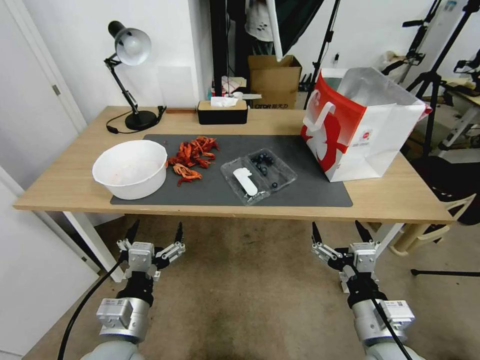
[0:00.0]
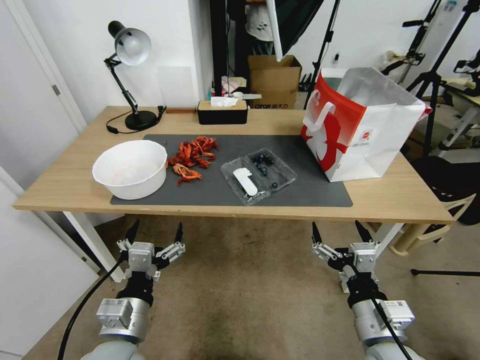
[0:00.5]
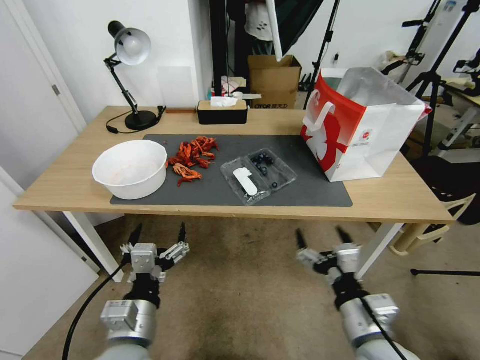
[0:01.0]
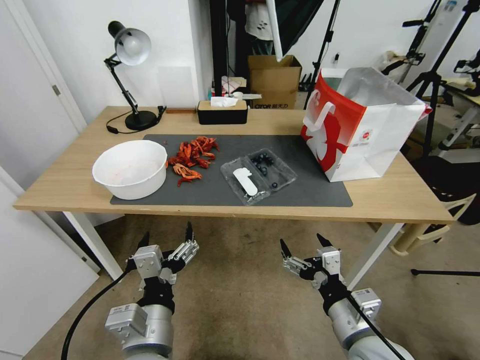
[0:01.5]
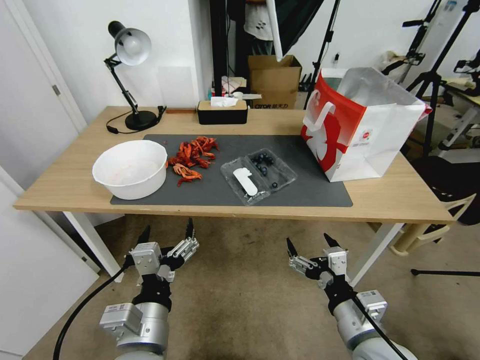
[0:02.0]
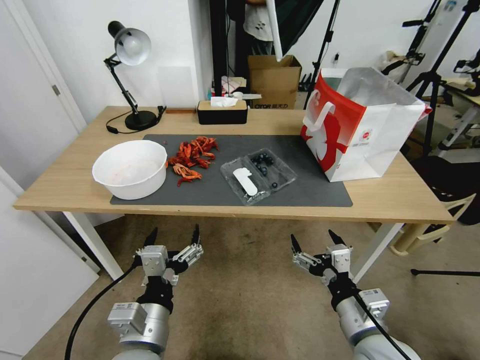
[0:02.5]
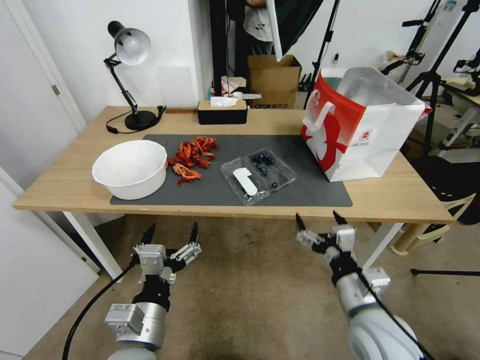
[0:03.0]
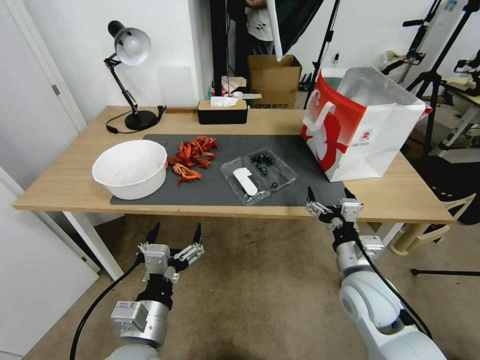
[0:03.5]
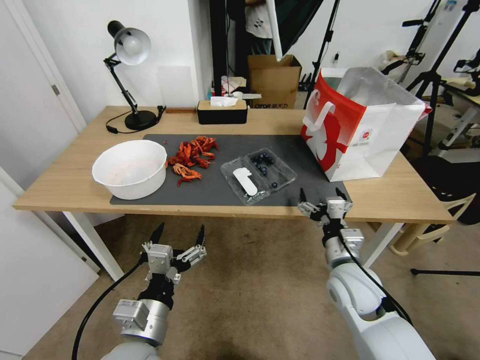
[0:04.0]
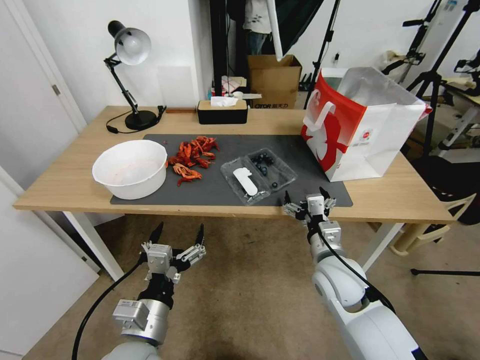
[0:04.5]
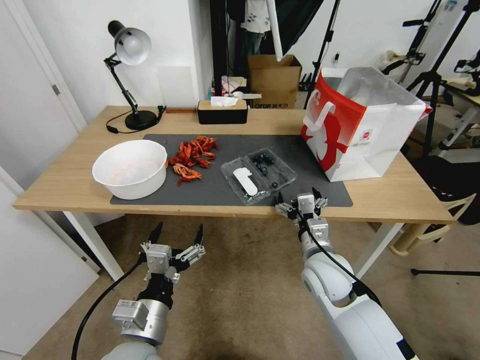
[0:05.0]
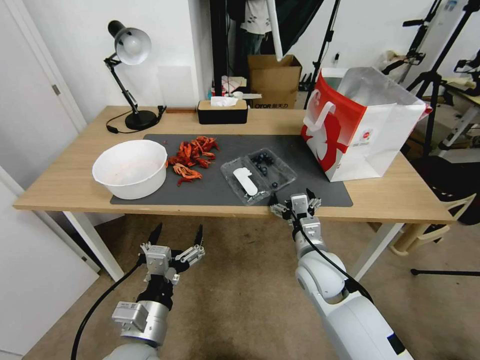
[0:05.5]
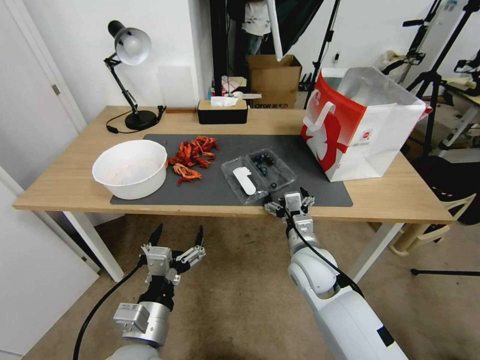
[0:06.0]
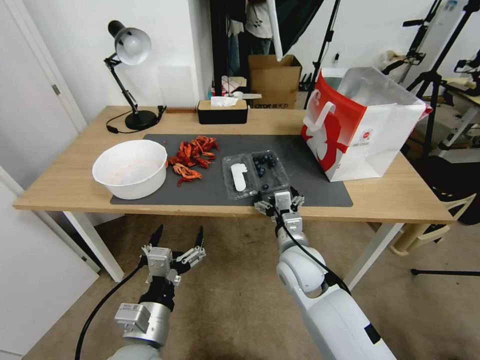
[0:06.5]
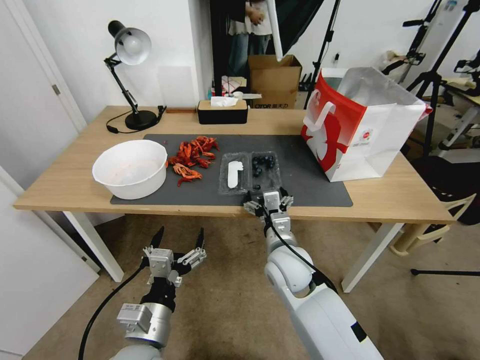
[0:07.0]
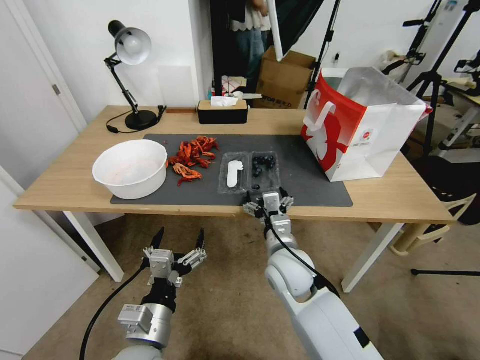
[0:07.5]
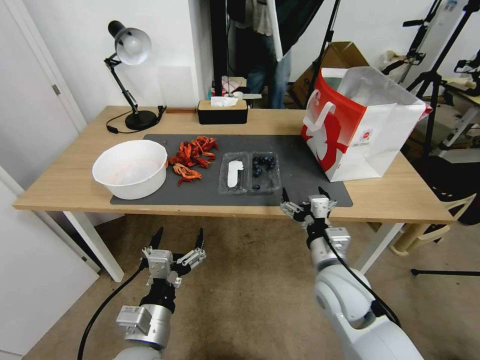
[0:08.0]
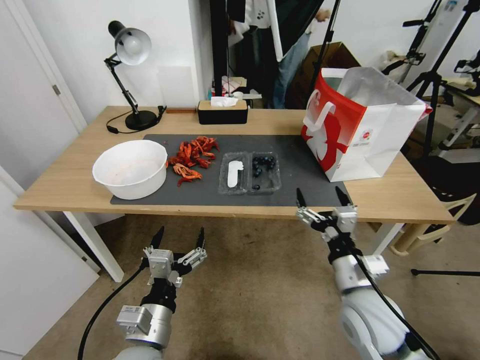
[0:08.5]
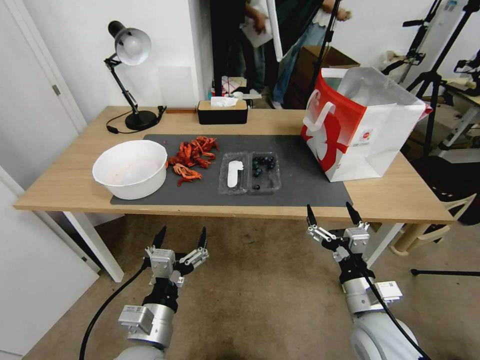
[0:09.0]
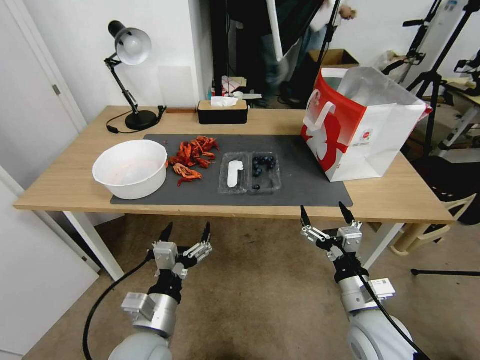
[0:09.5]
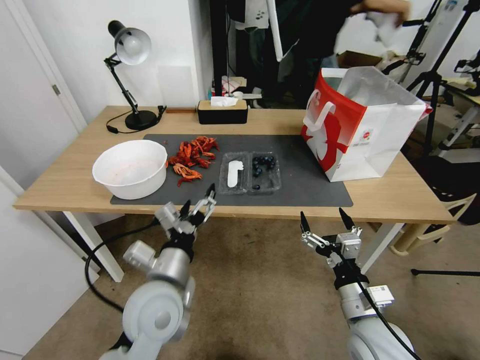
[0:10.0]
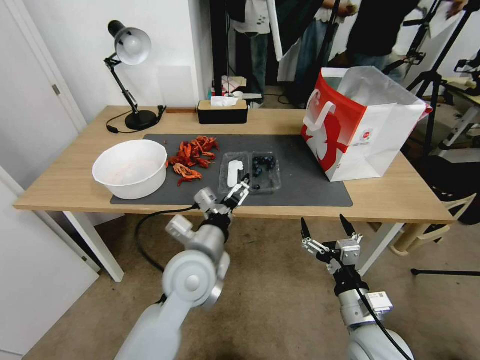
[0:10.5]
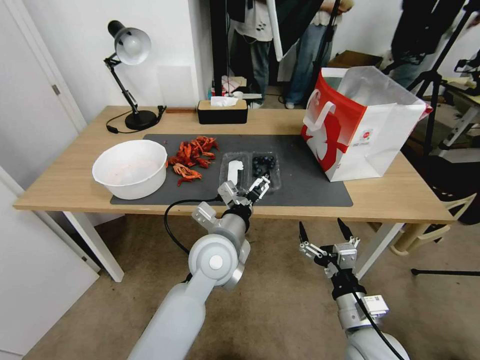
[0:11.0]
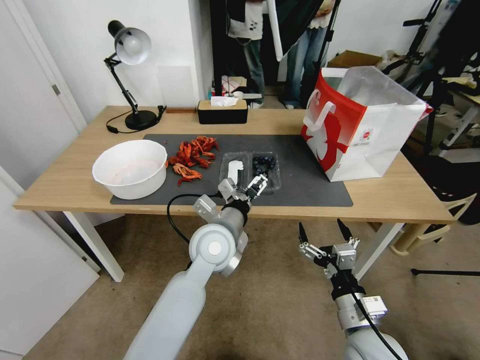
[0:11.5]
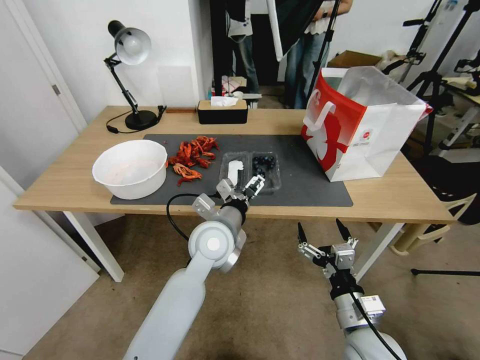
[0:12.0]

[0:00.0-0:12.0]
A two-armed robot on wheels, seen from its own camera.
Task of the whole recording: Close the takeout container lid, then place the container into the takeout bag.
0:02.0 to 0:04.0: The right gripper shifts some 15 cm forward, while the left gripper changes place by approximately 5 cm.
0:04.0 to 0:06.0: The right gripper heads to the left, covering about 5 cm.
0:06.0 to 0:08.0: The right gripper moves about 5 cm to the left and comes back.
0:08.0 to 0:10.0: The left gripper goes approximately 10 cm forward and upward. The right gripper moves backward and to the right, some 10 cm.
0:10.0 to 0:12.0: The left gripper shifts some 15 cm forward and to the right.

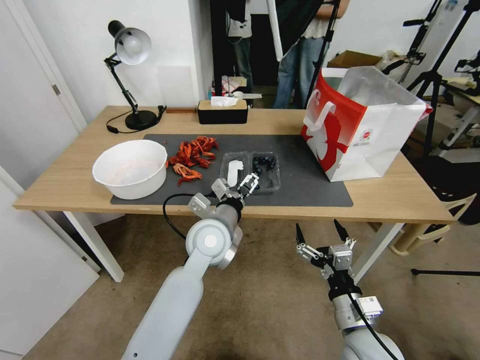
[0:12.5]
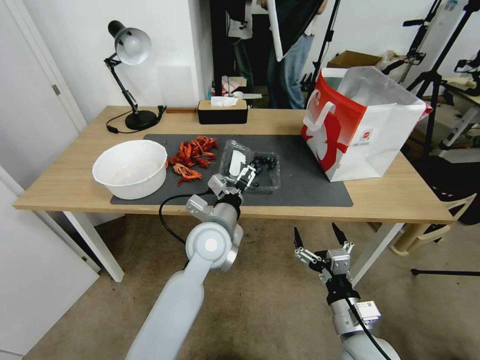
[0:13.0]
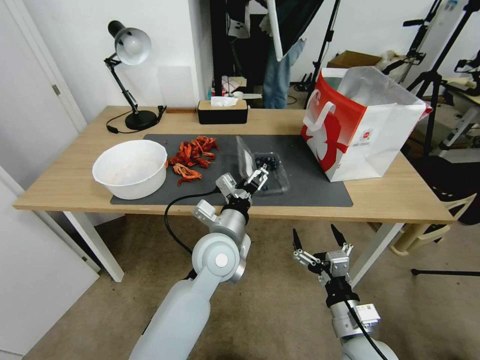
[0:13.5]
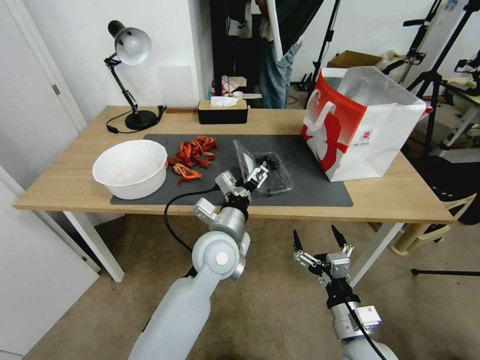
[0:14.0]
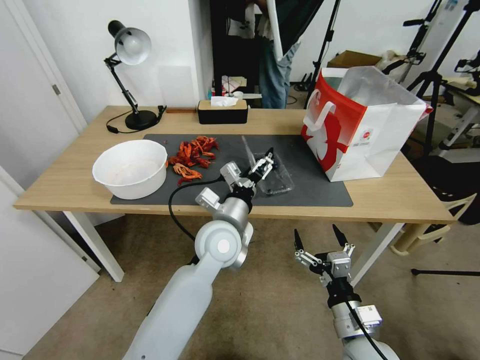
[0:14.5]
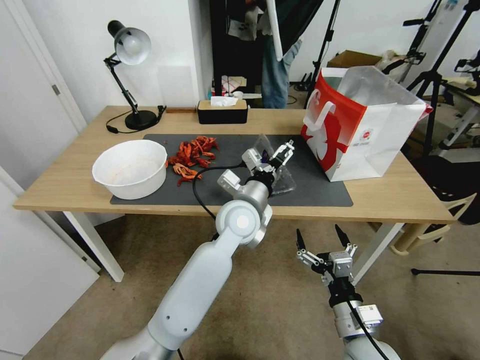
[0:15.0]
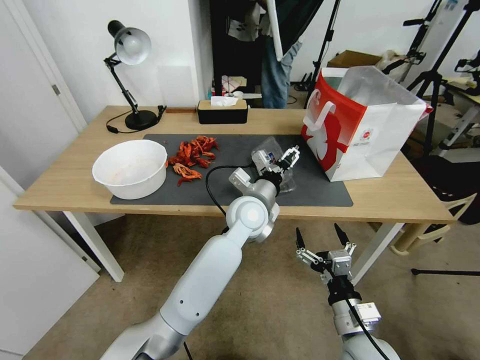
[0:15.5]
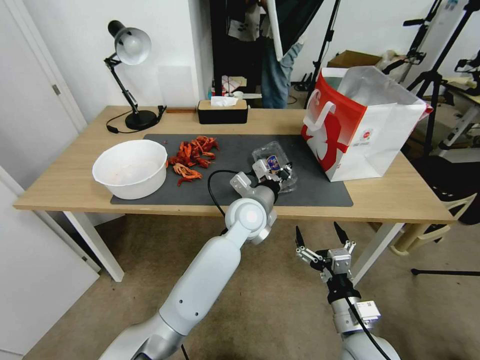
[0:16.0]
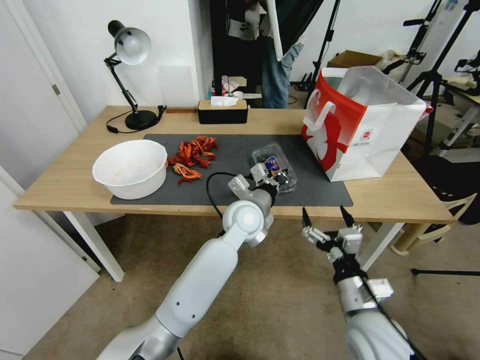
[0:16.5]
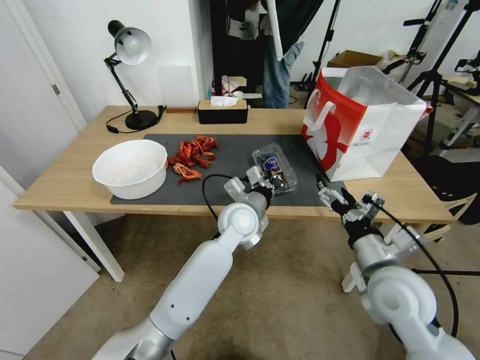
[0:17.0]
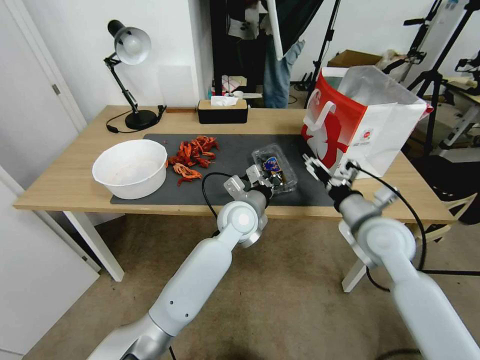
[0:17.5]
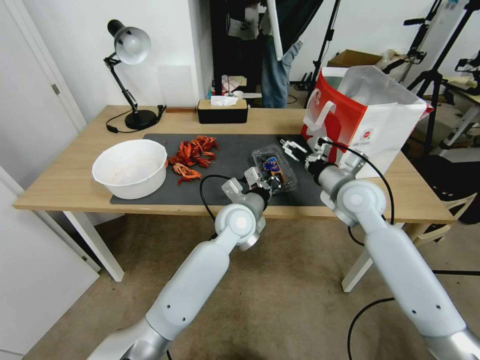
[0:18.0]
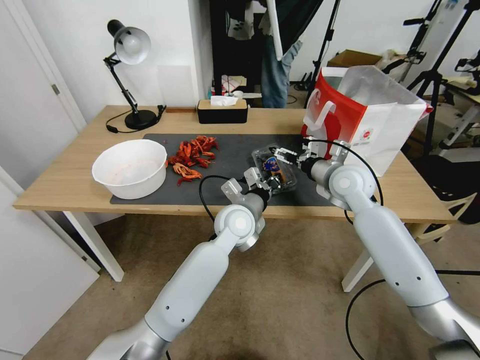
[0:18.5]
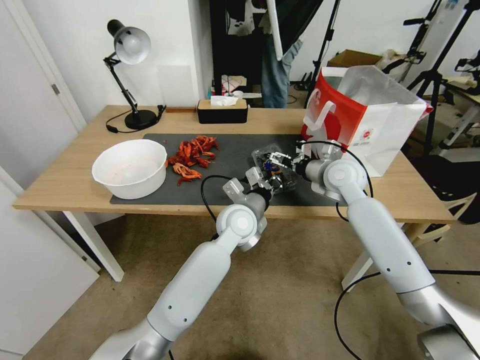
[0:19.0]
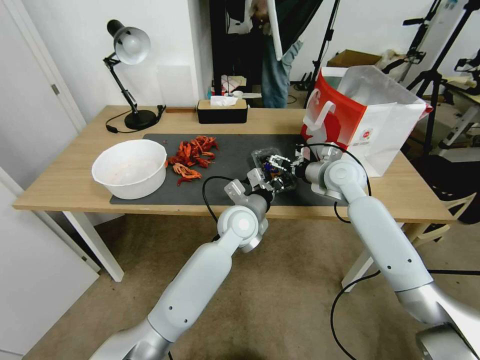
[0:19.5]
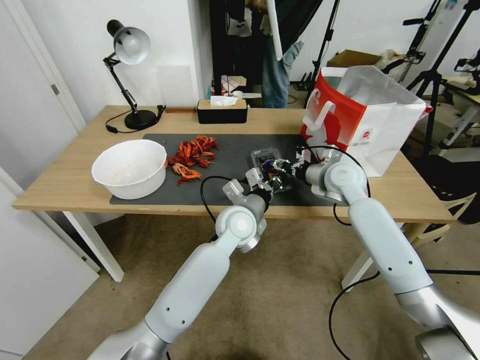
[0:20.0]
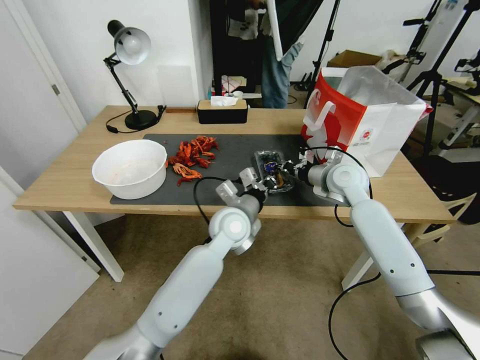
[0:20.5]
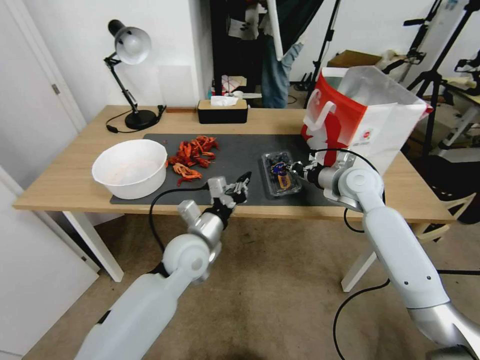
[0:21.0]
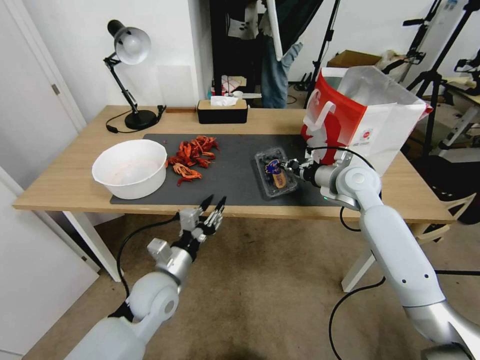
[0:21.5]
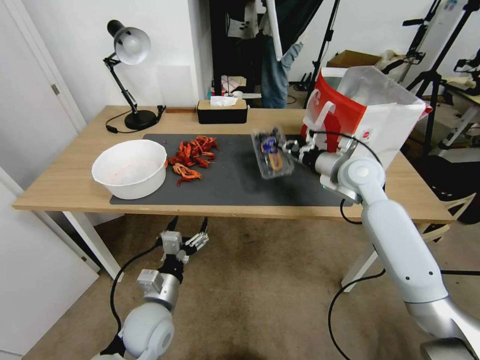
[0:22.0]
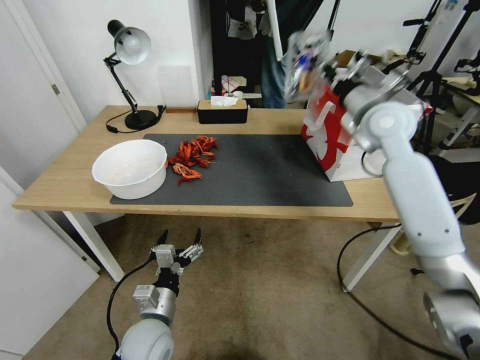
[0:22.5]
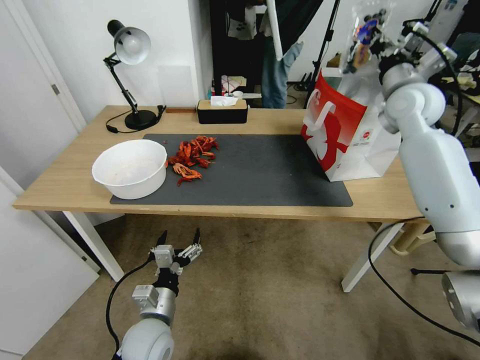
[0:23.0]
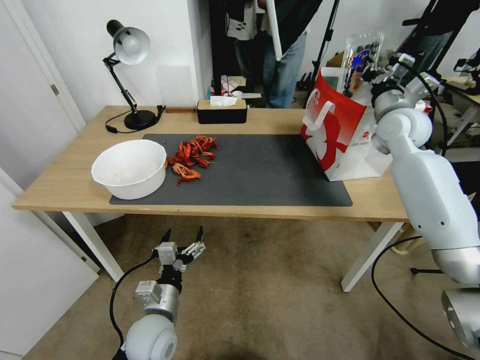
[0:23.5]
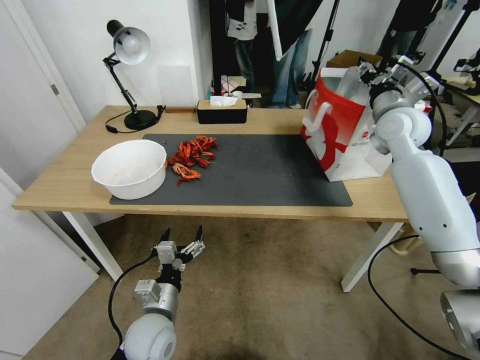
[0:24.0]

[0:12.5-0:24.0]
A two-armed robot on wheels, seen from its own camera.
Task of the whole recording: Close the takeout container lid, then place the container into the takeout bag.
0:14.5 to 0:16.5: The left gripper travels forward and to the right by some 10 cm, and closes.
0:16.5 to 0:18.5: The right gripper shifts about 30 cm forward and upward.
0:18.5 to 0:20.0: The right gripper closes.
0:20.0 to 0:22.0: The left gripper shifts some 30 cm to the left, backward and downward, and opens up. Meanwhile the right gripper shifts by about 5 cm, and closes up.
0:22.0 to 0:24.0: The right gripper shifts approximately 15 cm upward, to the right and forward, and opens up.

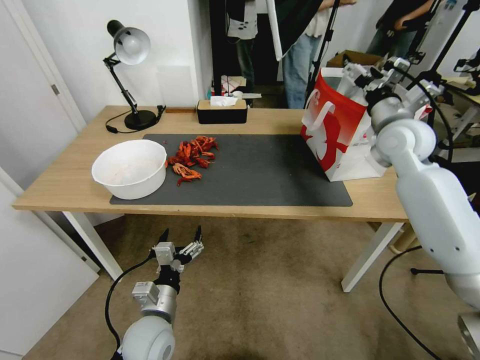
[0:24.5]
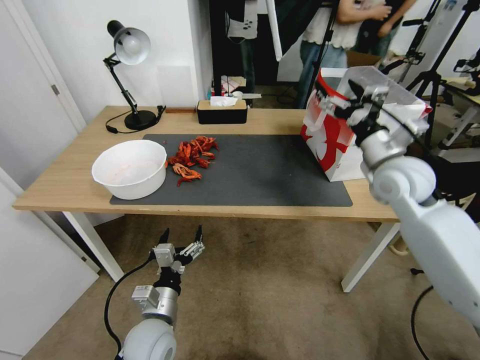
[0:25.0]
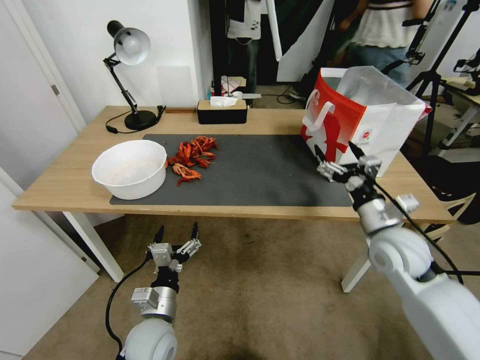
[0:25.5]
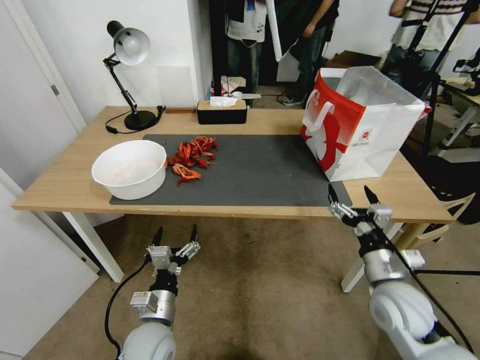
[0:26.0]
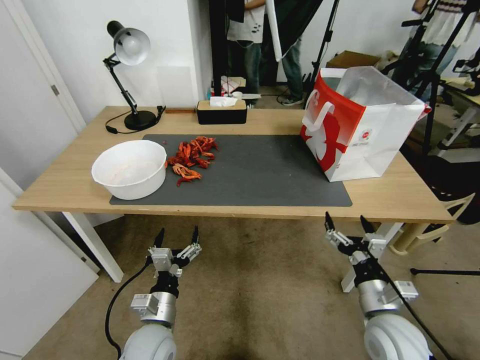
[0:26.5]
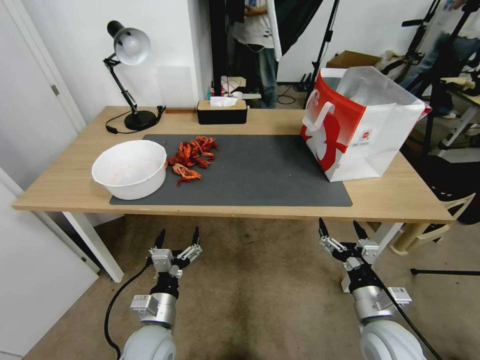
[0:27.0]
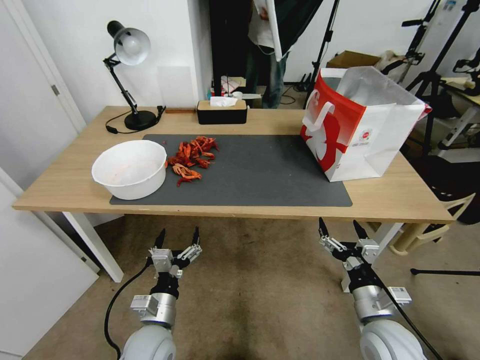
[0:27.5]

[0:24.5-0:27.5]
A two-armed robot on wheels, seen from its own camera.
Task of the whole recording: Close the takeout container lid, then place the container into the takeout bag.
0:24.5 to 0:26.0: The right gripper travels backward and downward by roughly 35 cm.
0:26.0 to 0:27.5: The right gripper is displaced backward and downward by approximately 10 cm.
